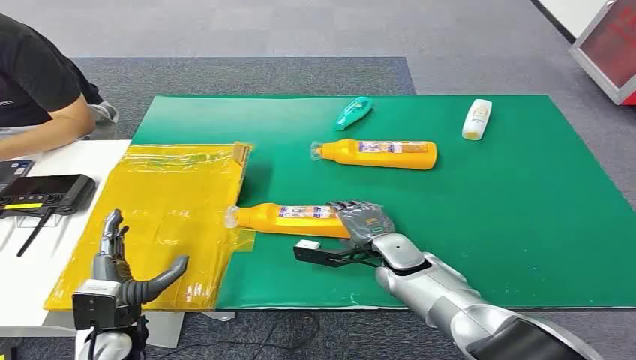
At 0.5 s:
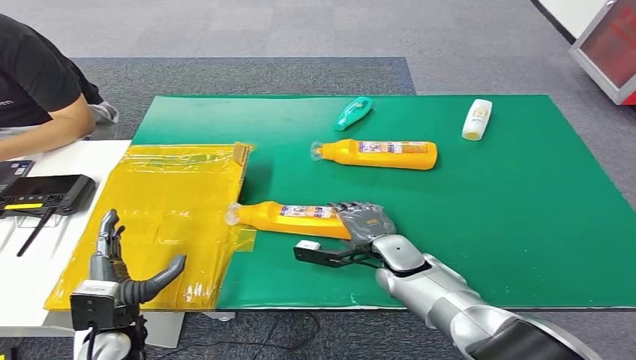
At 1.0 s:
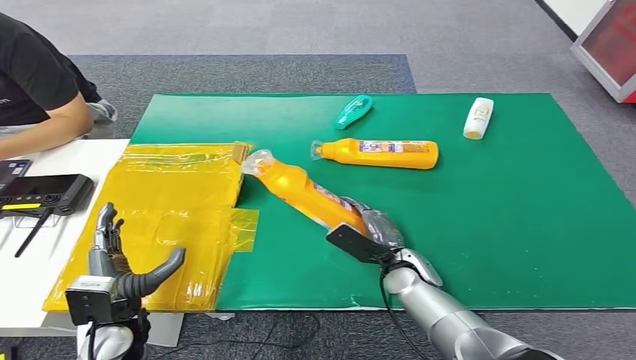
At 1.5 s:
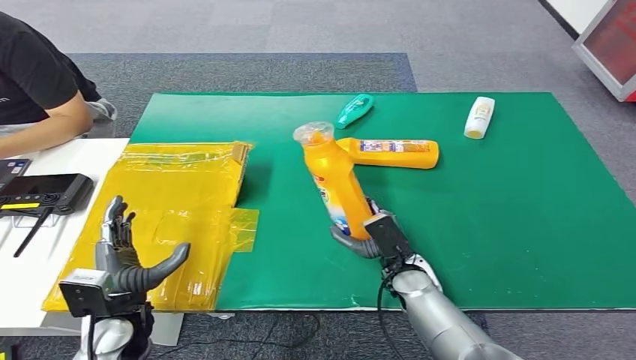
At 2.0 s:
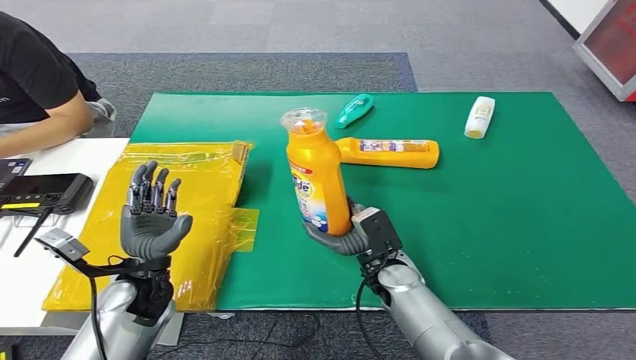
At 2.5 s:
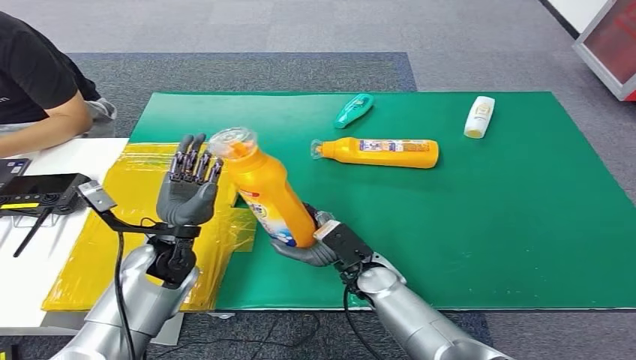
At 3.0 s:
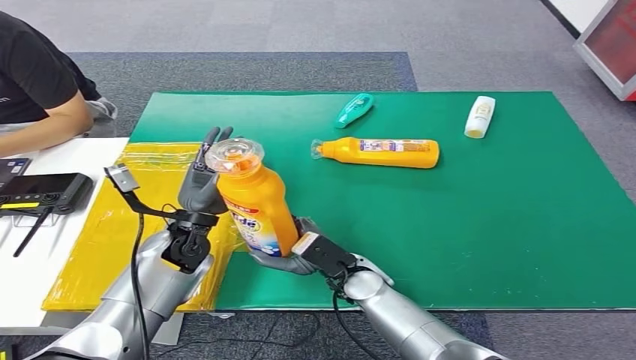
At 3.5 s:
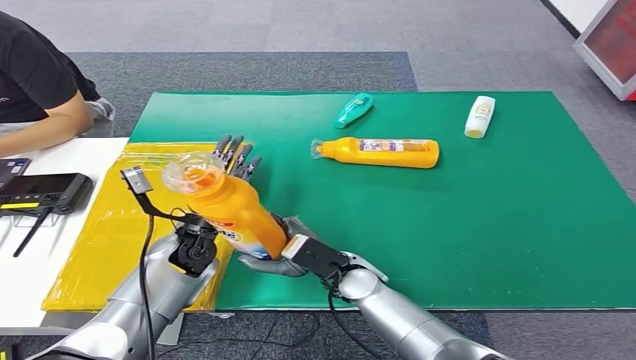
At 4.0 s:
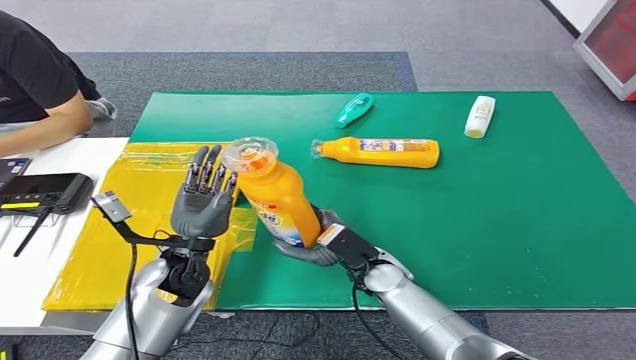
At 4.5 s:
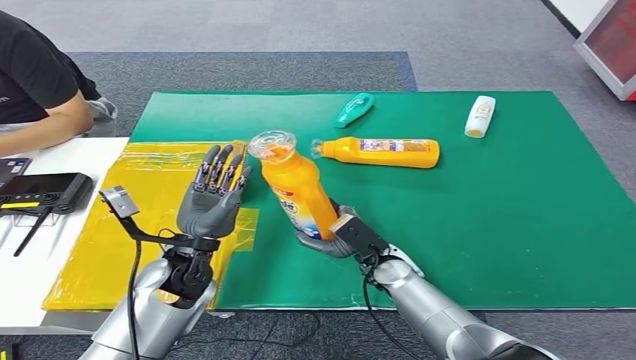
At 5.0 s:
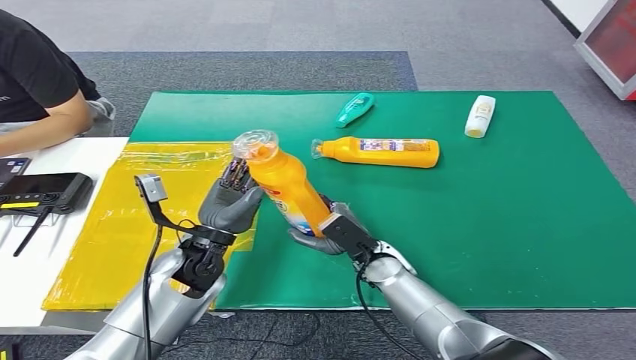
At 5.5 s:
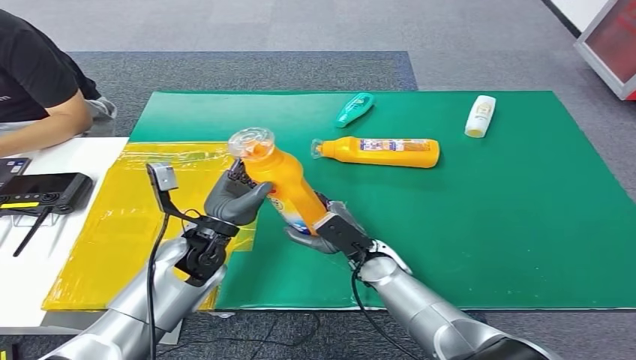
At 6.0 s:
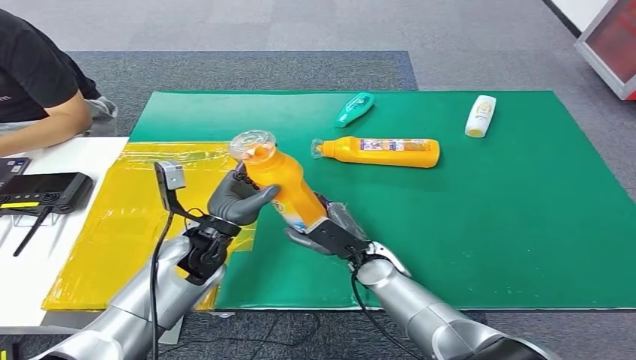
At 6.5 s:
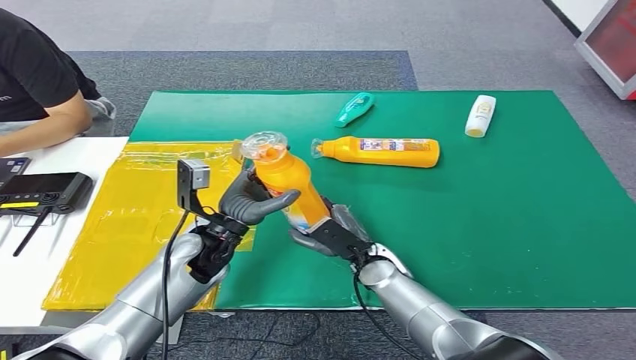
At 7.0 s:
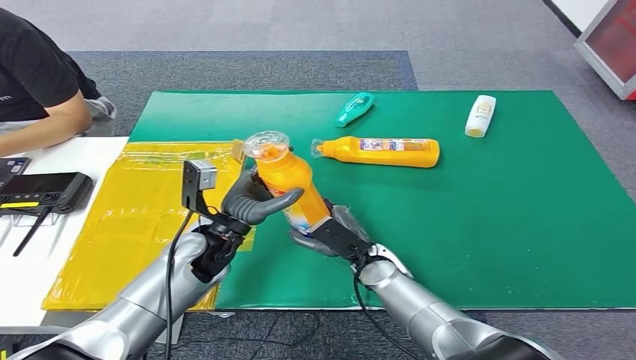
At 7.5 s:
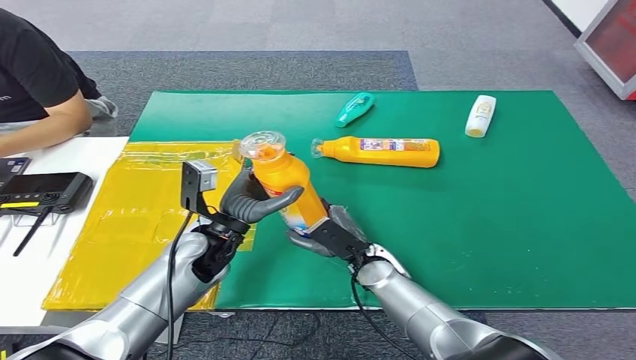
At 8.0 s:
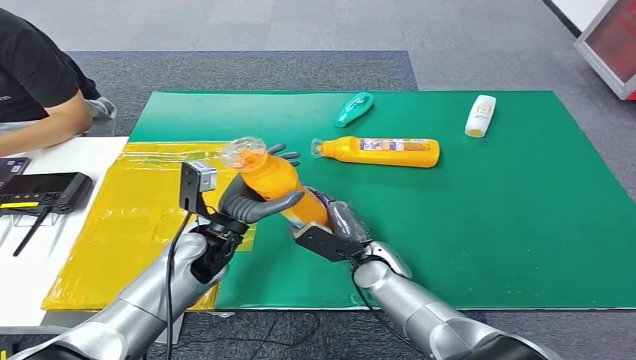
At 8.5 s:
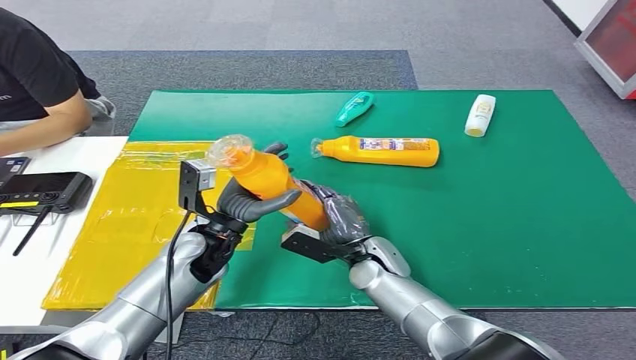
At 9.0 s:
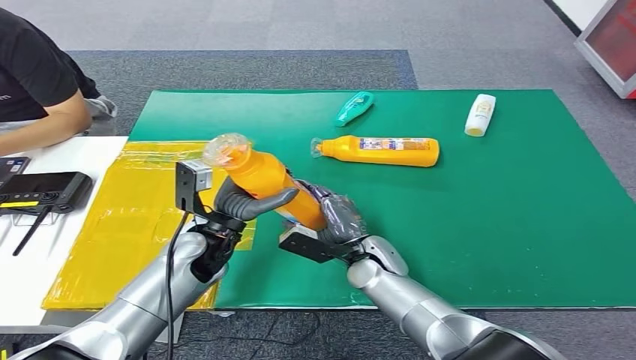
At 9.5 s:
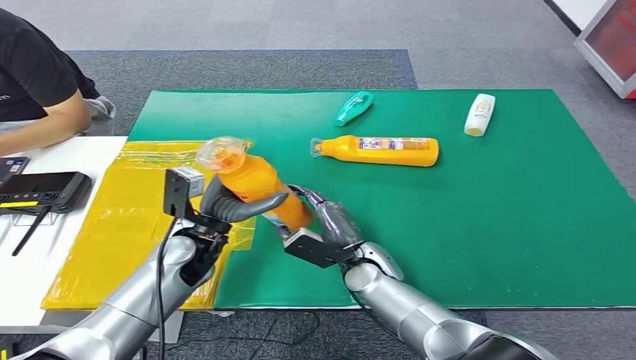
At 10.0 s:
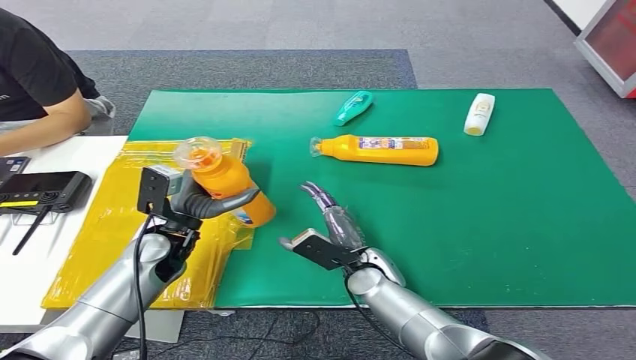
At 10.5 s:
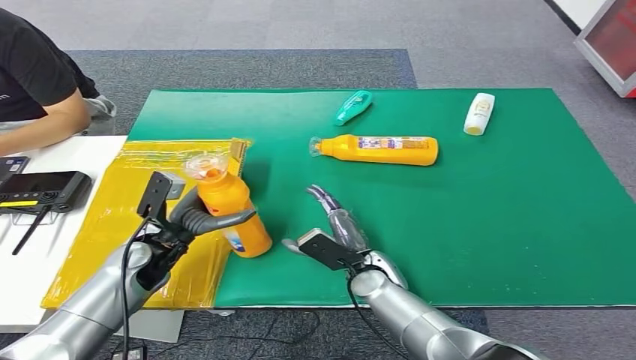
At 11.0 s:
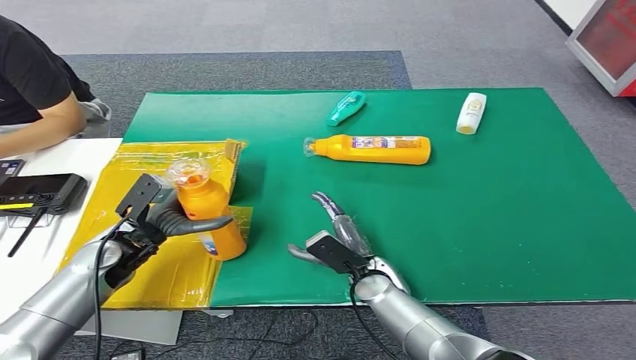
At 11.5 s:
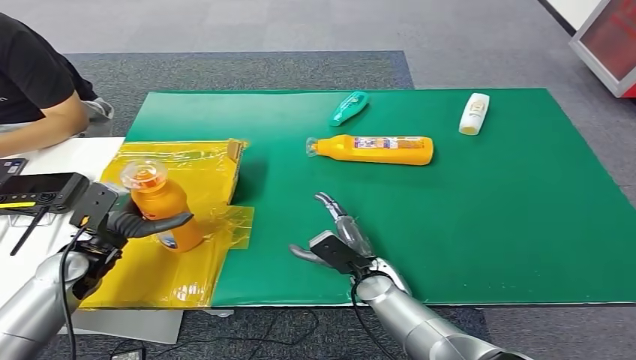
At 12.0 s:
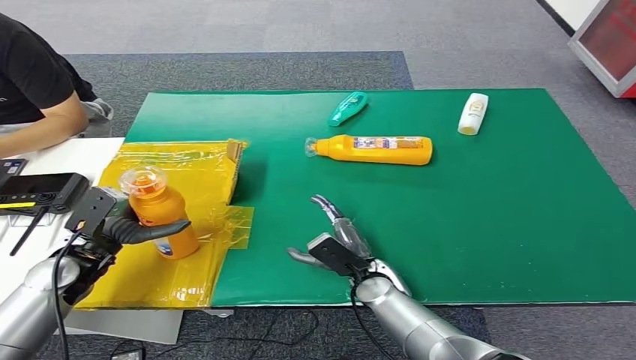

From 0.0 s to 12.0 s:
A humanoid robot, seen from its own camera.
Step, from 0.0 s to 2.0 s: Pick up the bottle from the table.
From 2.0 s to 4.0 s: The left hand heads to the right, covering approximately 5 cm, and goes forward and returns, about 10 cm each way.
From 4.0 s to 6.0 s: The hands move only a little.
From 6.0 s to 8.0 s: The hands move only a little.
From 8.0 s to 10.0 s: The left hand travels to the left by approximately 5 cm.

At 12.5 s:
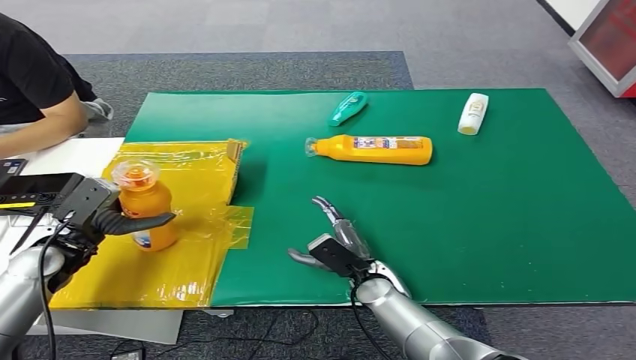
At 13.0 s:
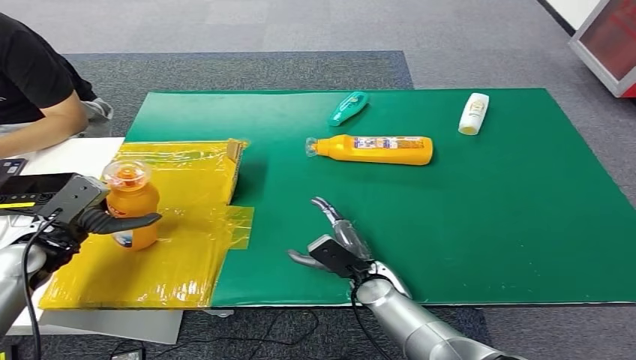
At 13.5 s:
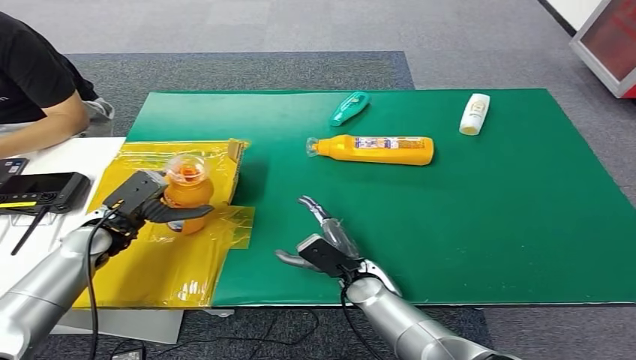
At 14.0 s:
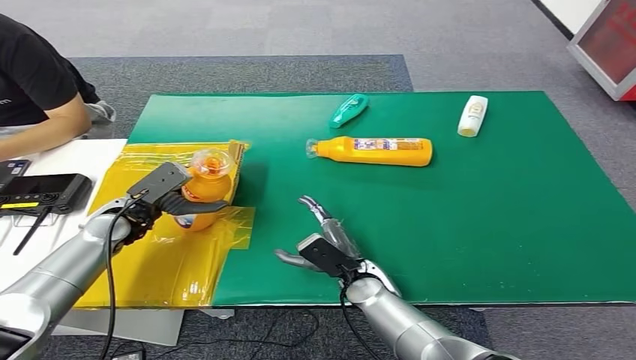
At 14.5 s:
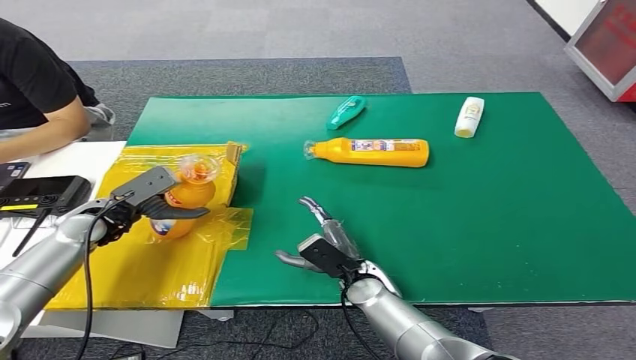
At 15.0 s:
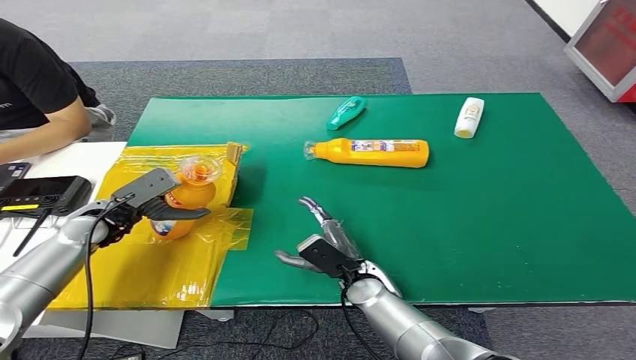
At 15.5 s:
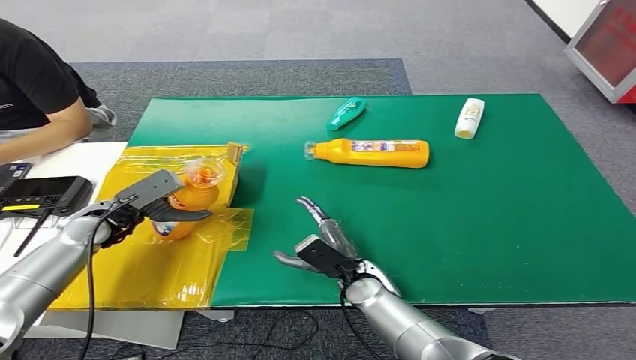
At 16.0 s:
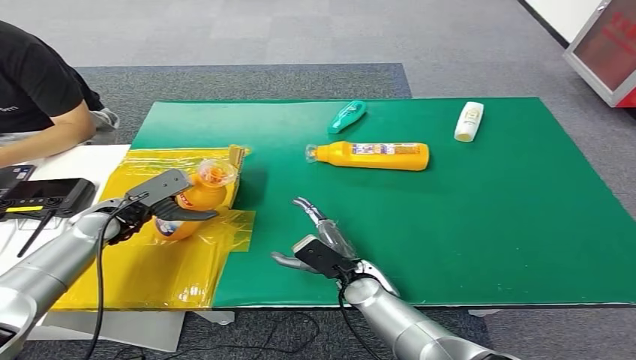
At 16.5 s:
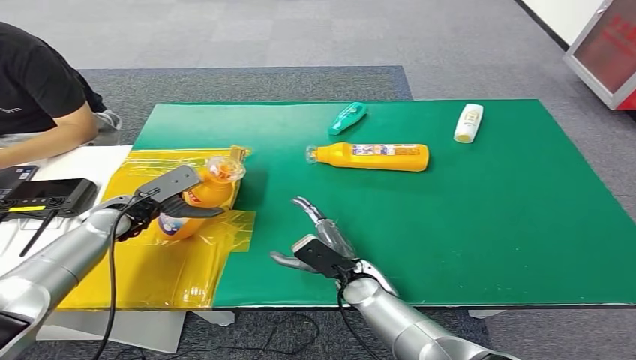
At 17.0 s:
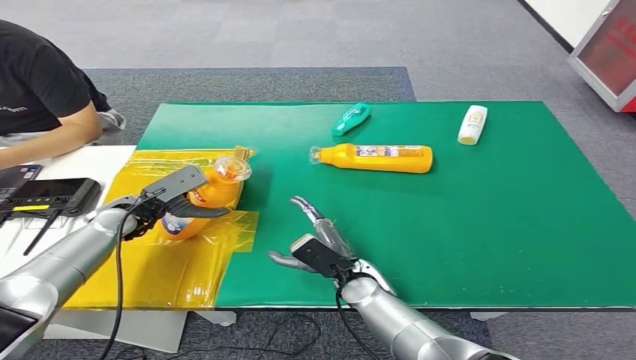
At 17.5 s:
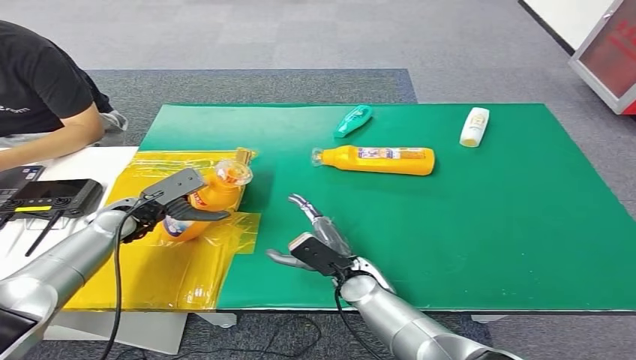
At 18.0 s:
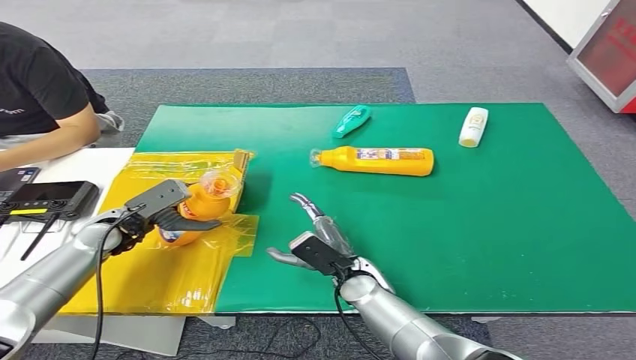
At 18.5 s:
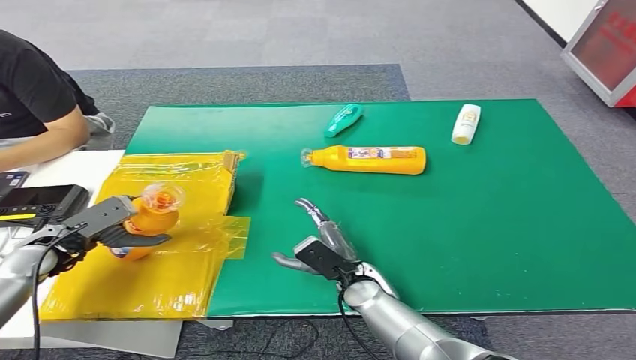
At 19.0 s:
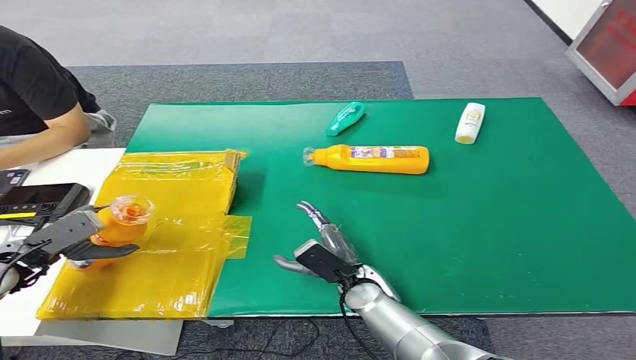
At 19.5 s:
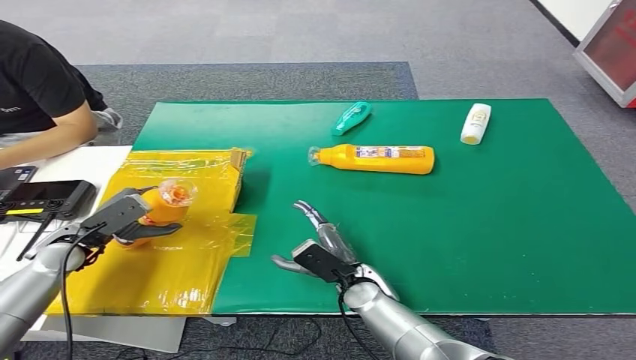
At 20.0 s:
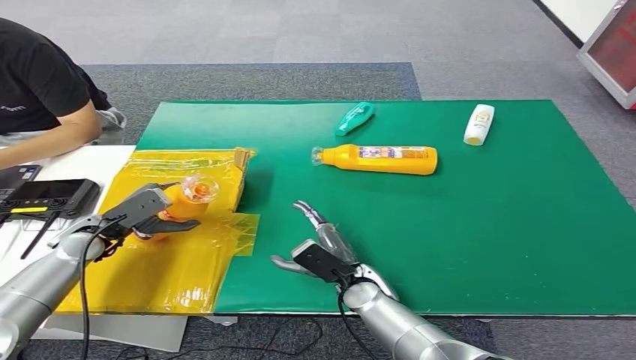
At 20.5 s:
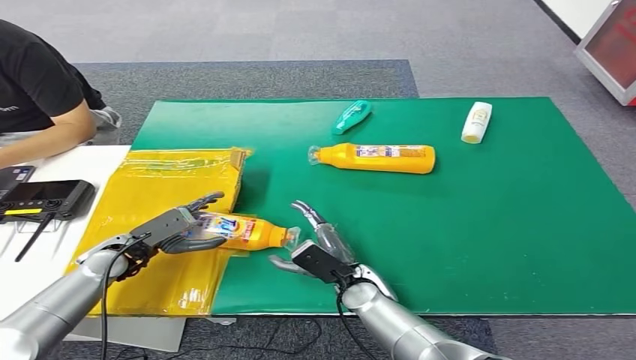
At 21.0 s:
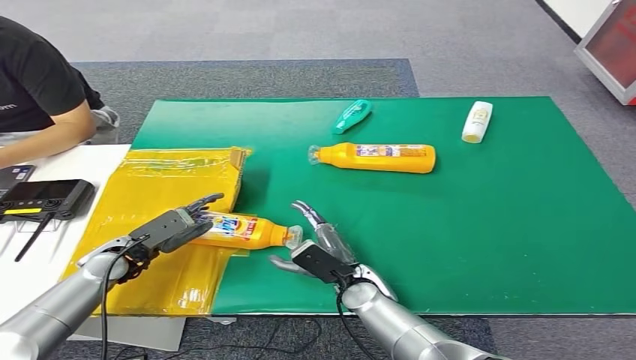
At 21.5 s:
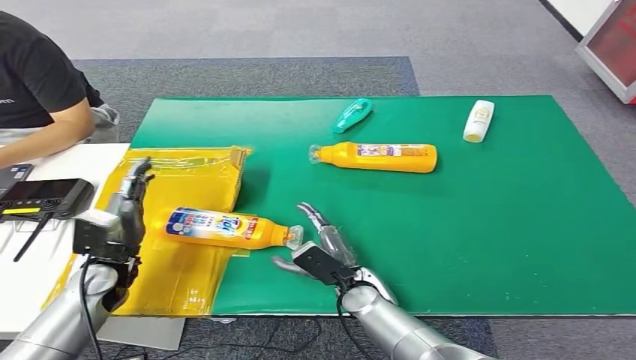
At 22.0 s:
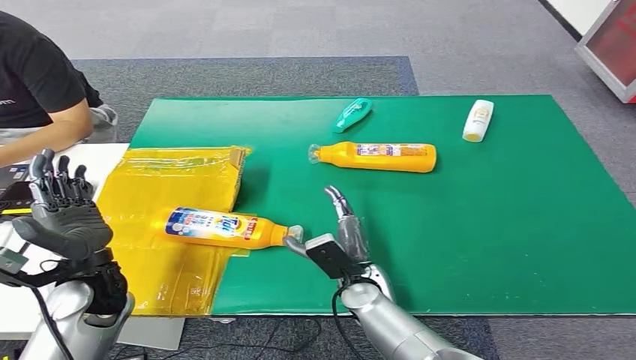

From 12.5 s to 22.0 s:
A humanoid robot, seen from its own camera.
Step, from 12.5 s to 22.0 s: Turn the bottle to the front side.
From 12.5 s to 14.5 s: The left hand heads forward, covering approximately 5 cm.
From 16.5 s to 18.0 s: The hands make only small movements.
From 18.0 s to 20.0 s: The left hand moves roughly 10 cm to the left and comes back.
